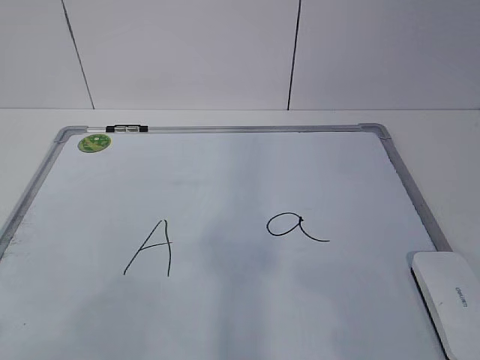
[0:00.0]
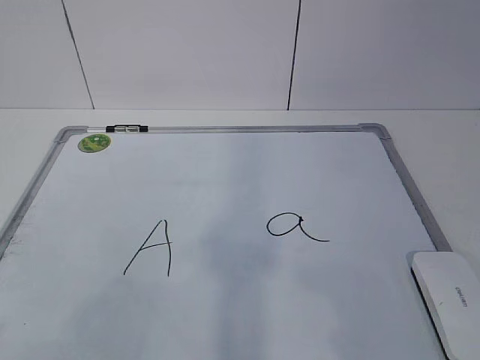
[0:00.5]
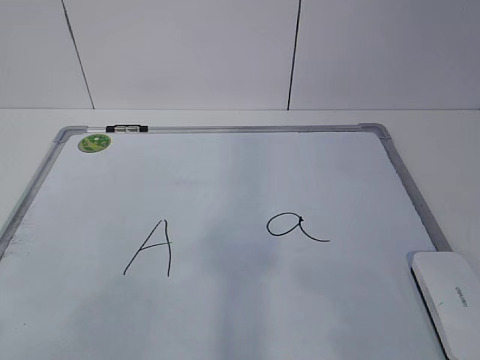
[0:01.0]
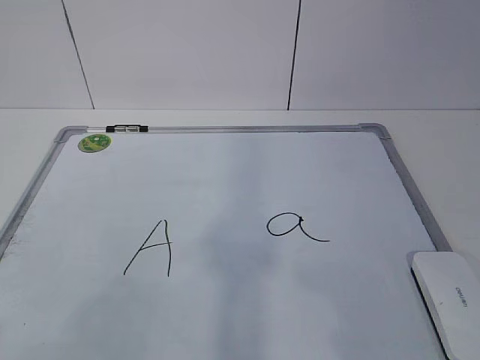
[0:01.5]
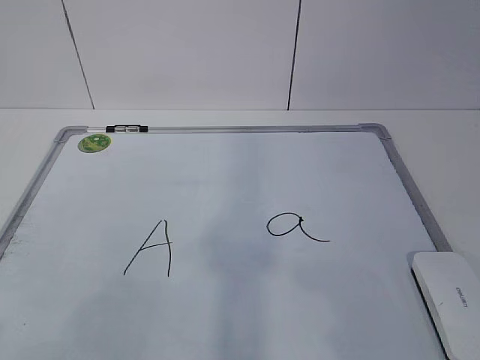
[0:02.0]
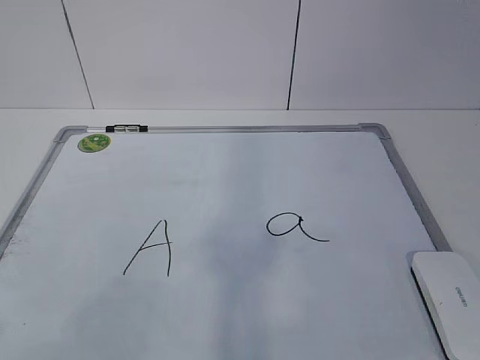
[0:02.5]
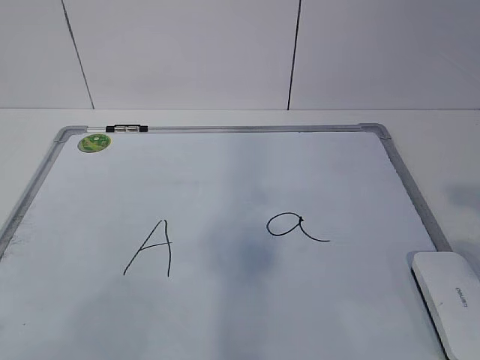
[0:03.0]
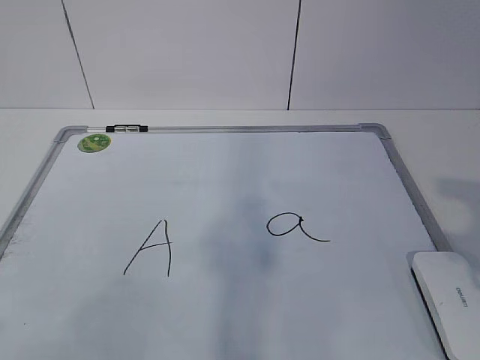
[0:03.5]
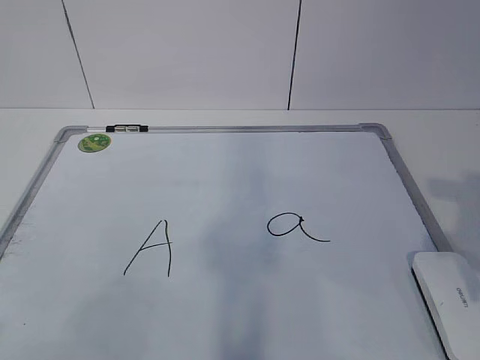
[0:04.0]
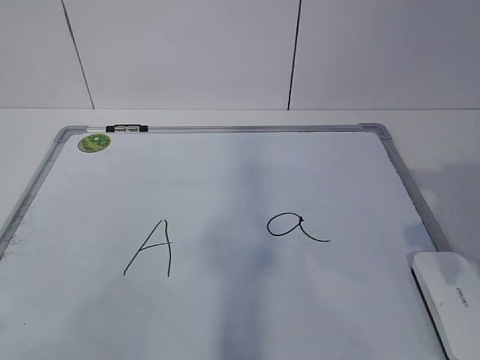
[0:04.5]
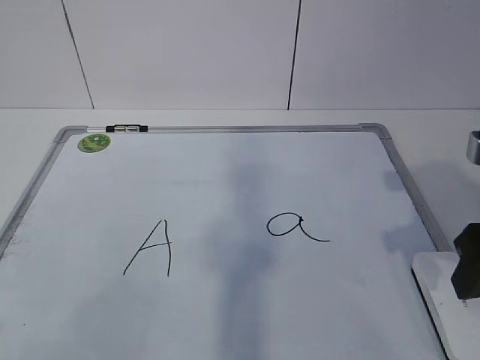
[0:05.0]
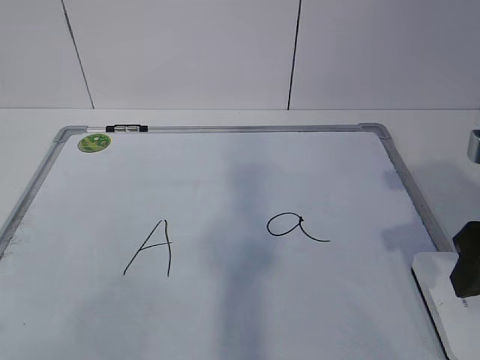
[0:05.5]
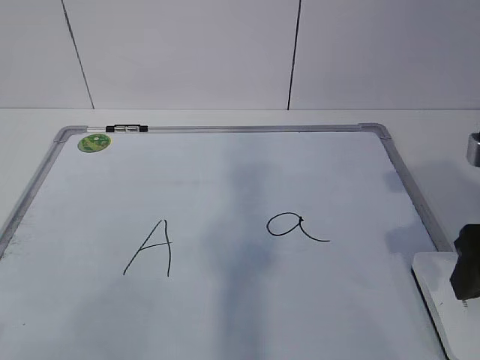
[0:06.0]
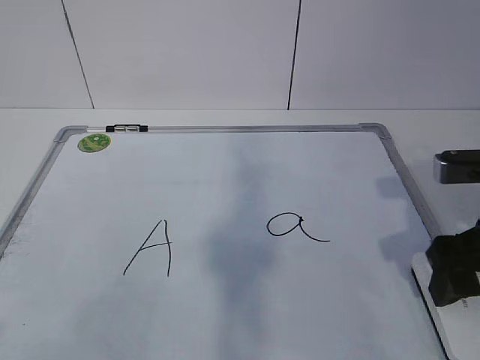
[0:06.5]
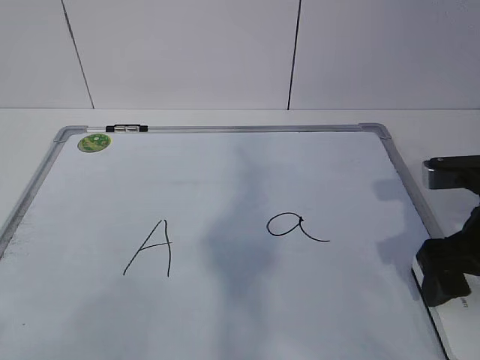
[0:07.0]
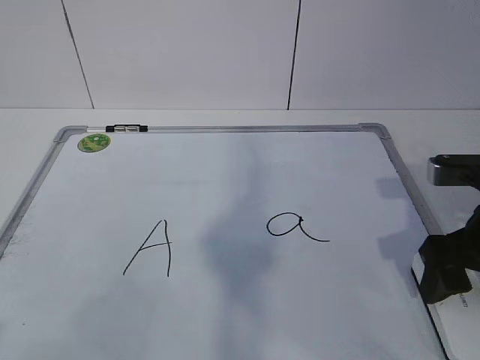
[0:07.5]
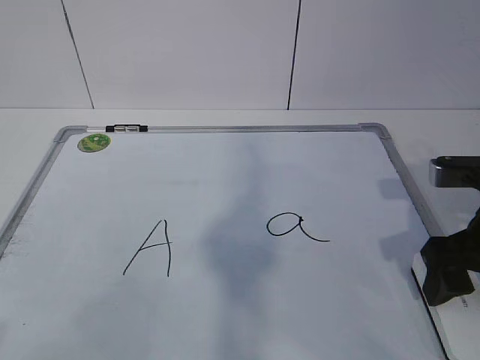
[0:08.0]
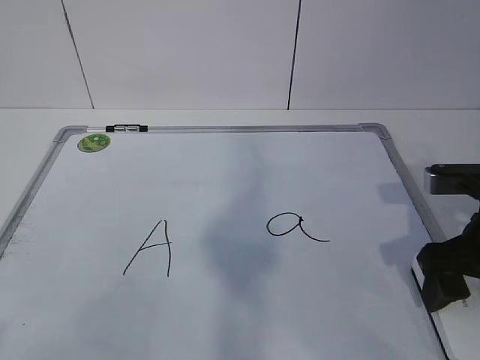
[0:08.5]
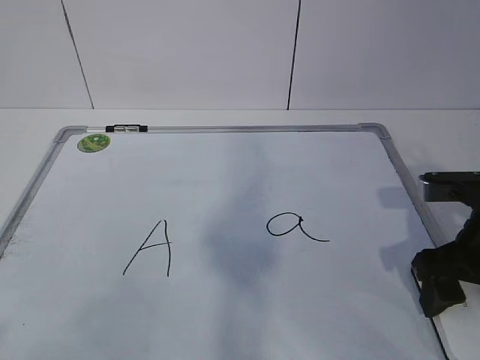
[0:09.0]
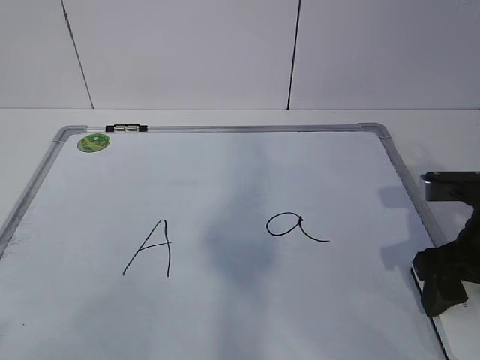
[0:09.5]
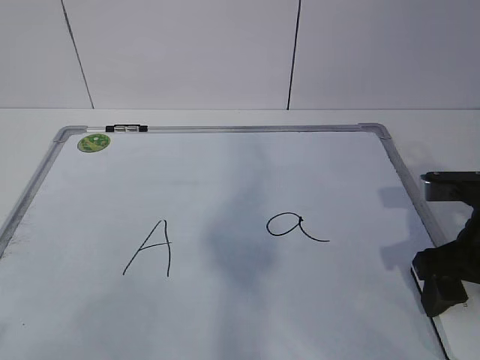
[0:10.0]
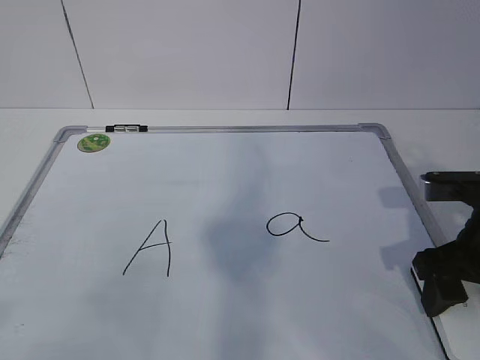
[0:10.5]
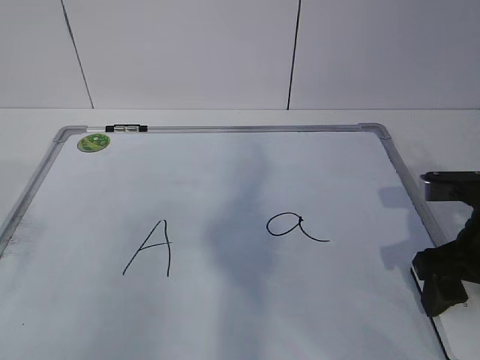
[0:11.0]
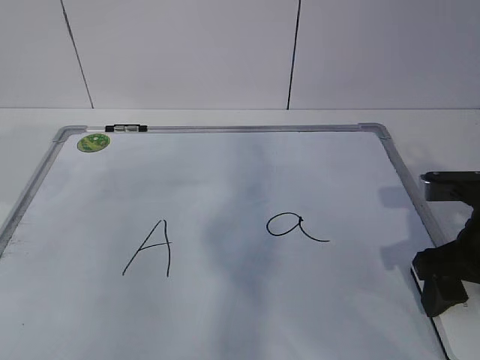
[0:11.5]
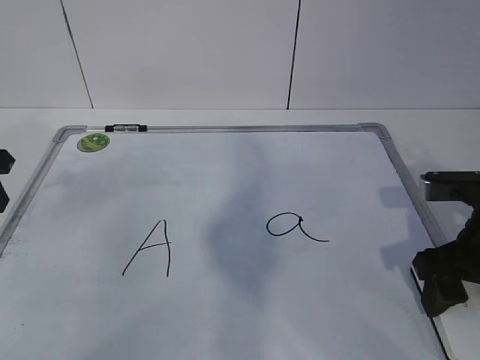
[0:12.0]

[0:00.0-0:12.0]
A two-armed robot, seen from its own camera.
Task of the whole recording: pick up the eraser on the blackboard and erase the letter "a".
0:04.0 to 0:06.0: The right gripper heads forward, covering about 5 cm.
0:06.0 to 0:08.0: The right gripper shifts by some 5 cm.
0:08.0 to 0:10.0: The grippers make only small movements.
0:10.0 to 0:12.0: The left gripper heads forward, covering approximately 30 cm.

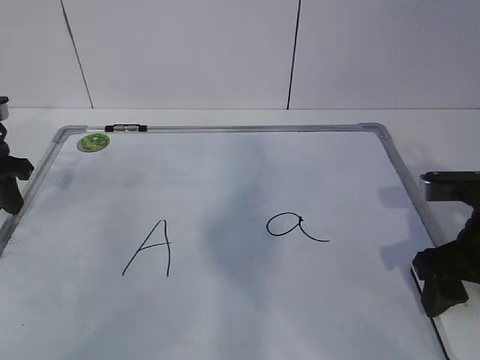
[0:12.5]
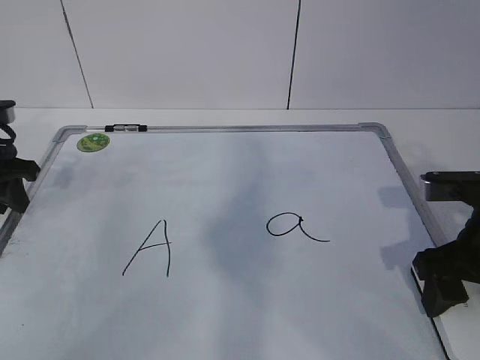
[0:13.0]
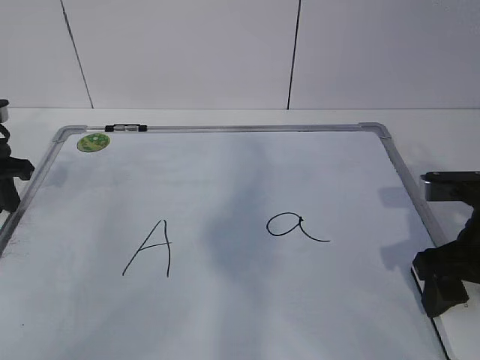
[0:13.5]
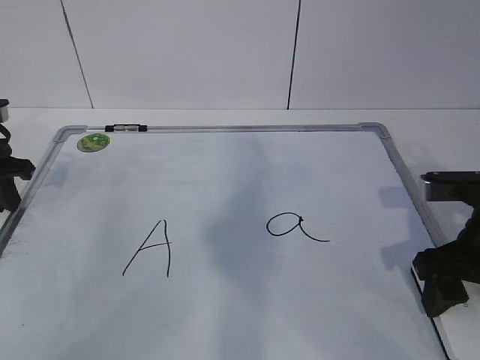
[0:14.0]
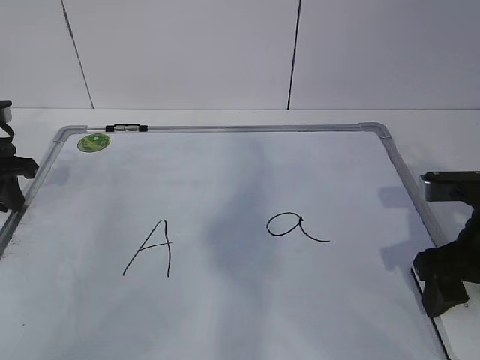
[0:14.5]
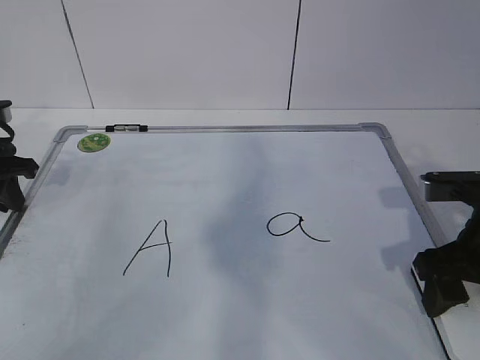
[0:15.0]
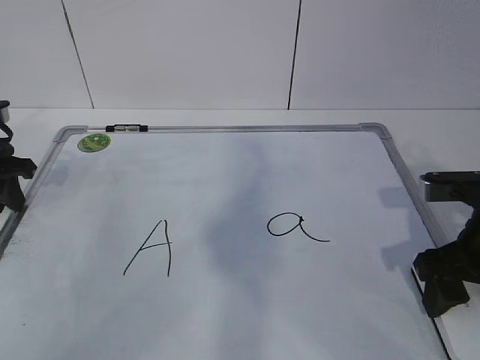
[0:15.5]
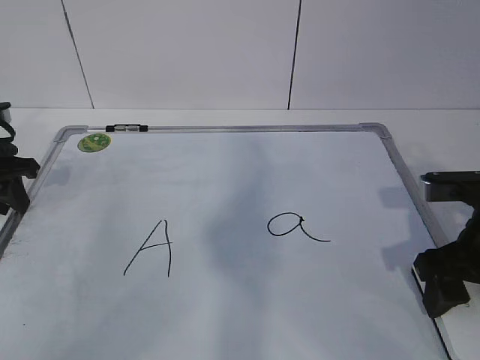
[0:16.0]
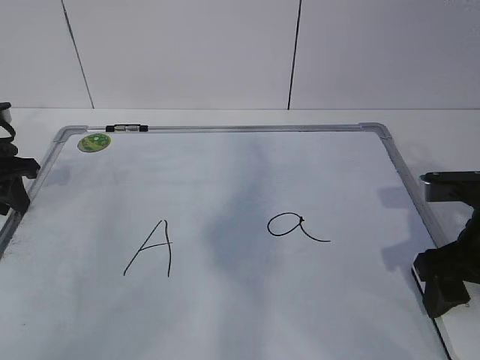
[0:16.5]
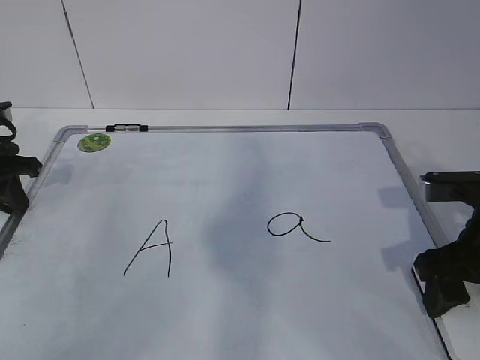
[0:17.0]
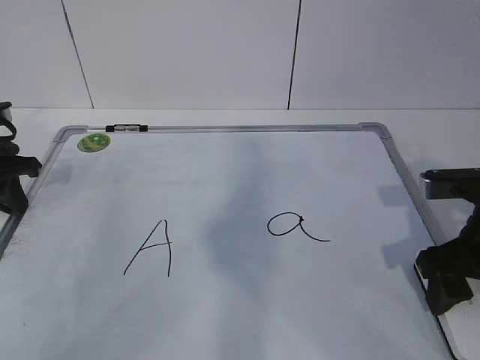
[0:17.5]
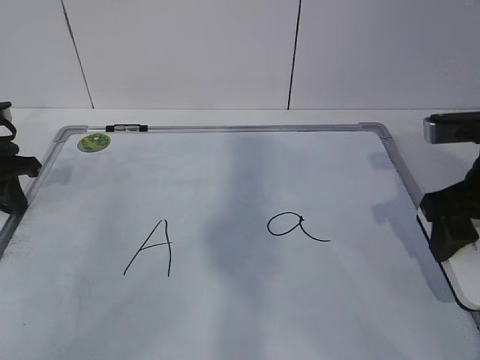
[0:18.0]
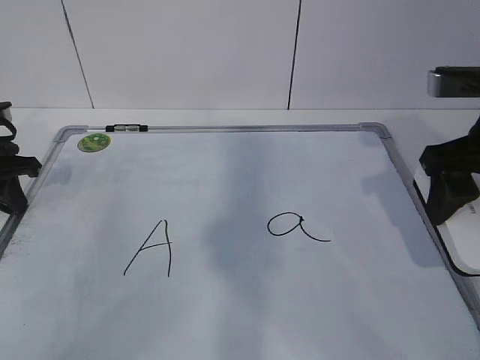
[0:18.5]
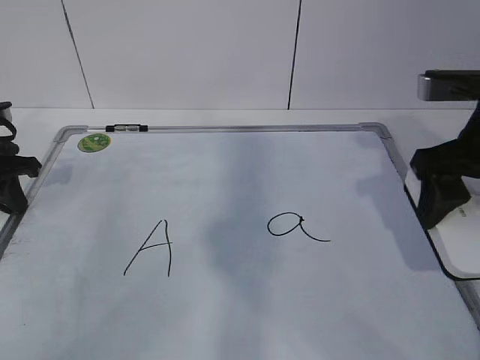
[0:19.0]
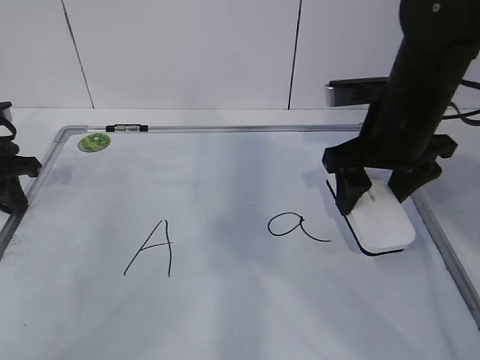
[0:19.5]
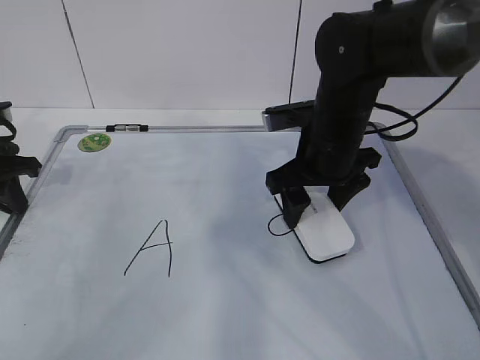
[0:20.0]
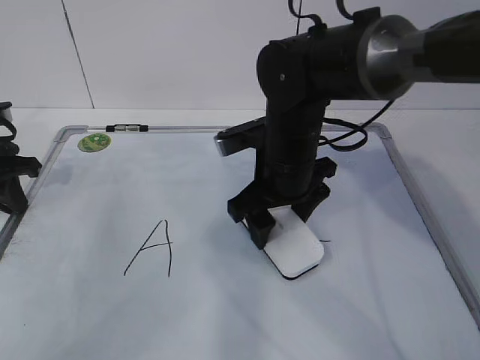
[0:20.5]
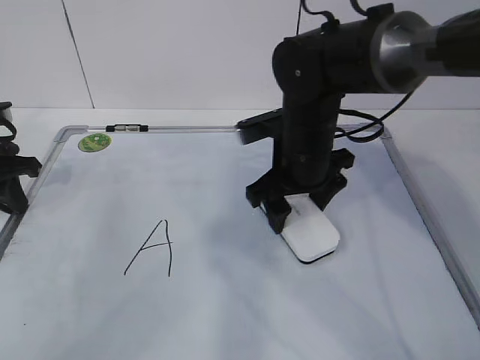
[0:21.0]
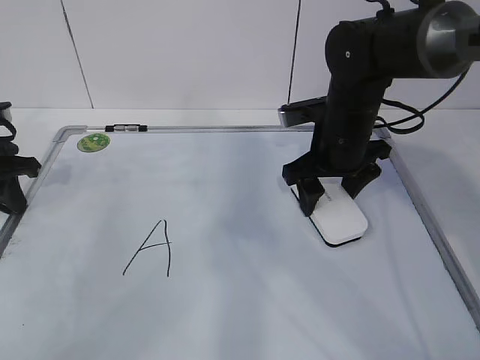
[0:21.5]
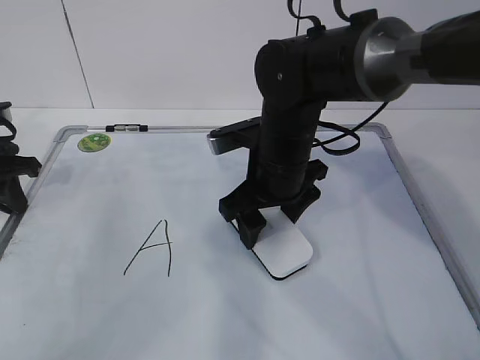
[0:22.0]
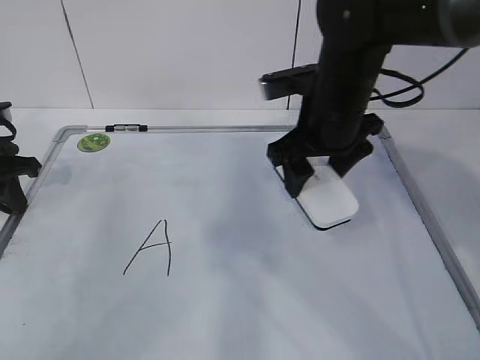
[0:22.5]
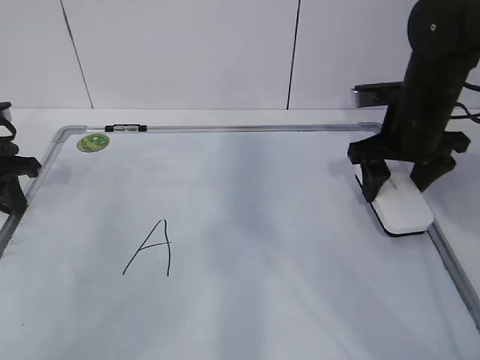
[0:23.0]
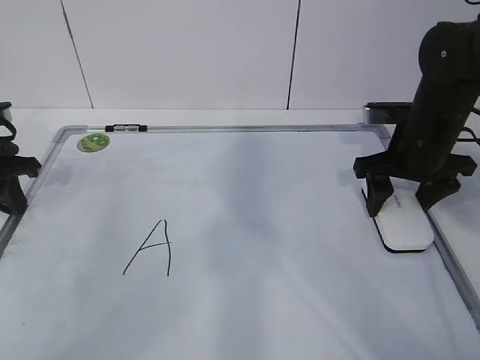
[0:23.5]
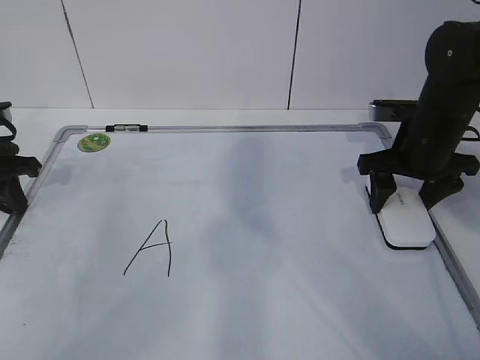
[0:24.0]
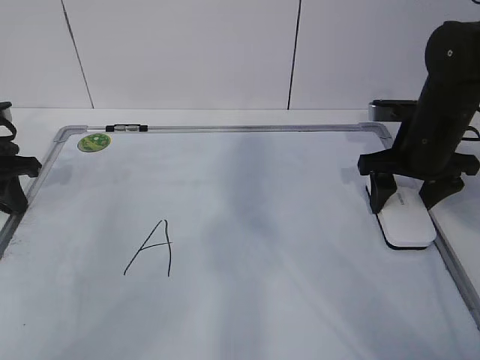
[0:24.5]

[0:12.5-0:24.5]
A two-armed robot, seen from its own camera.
Task of the whole recording: pick up the eraser on the blackboard and erase the letter "a".
Step, 0:15.0 to 0:18.0: Erase the letter a with your right hand.
Step, 0:18.5 to 0:23.0: Put down the eraser with your right hand.
0:12.5 to 0:14.5: The left gripper closes its fingers.
0:16.5 to 0:18.5: The right gripper shifts some 10 cm upward.
0:18.5 to 0:20.5: The right gripper is displaced to the left, downward and forward by some 20 cm.
0:20.5 to 0:22.5: The right gripper goes left and right, some 10 cm each way, reversing 2 times.
0:22.5 to 0:24.5: The right gripper travels to the right by some 15 cm.

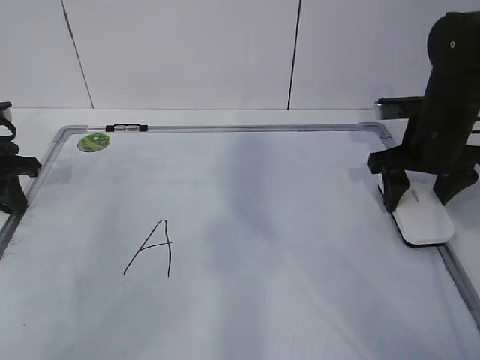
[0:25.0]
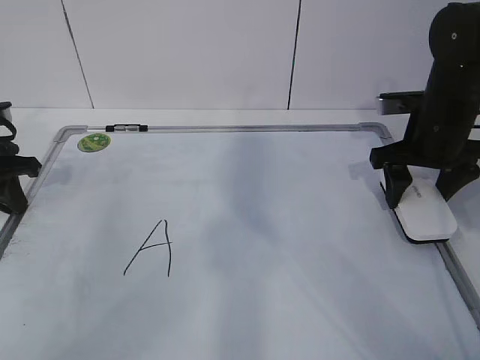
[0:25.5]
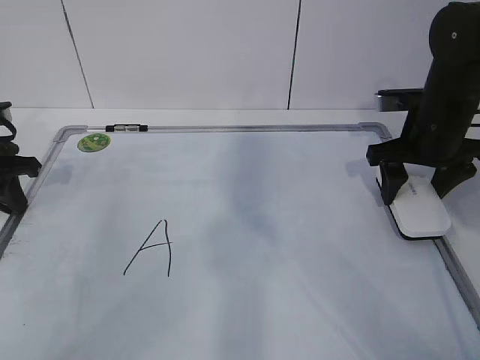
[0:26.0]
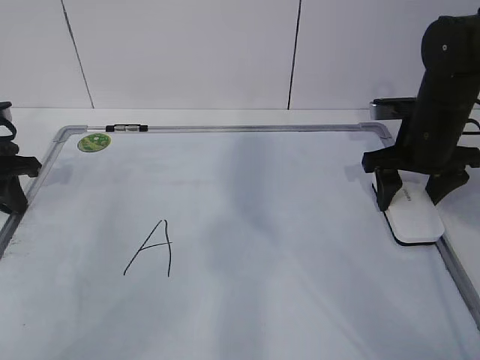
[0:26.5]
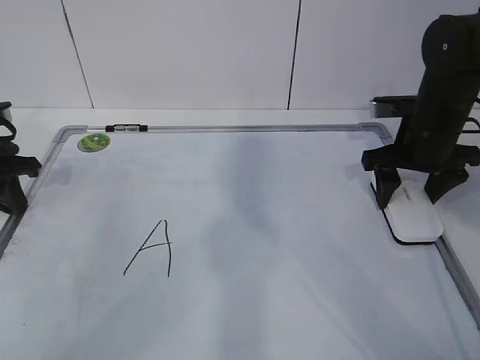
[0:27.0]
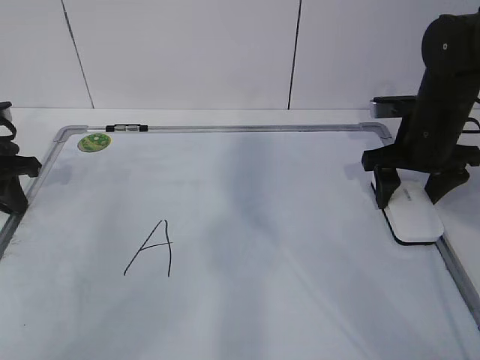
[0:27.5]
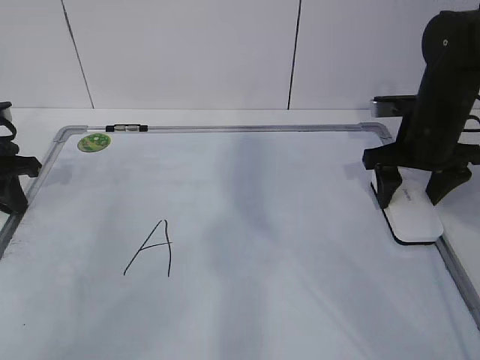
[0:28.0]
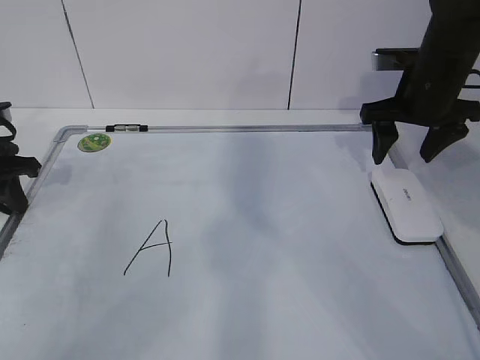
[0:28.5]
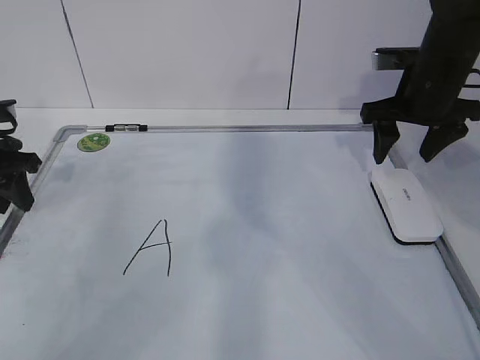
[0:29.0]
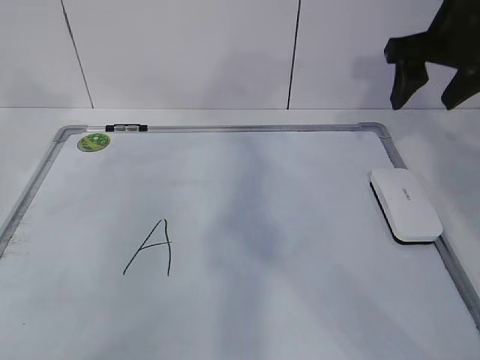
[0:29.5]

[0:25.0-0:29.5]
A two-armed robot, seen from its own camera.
Task of the whole recording: pick up the eraser on the blackboard and erase the letter "a".
0:25.0 to 0:27.0: Both grippers stay put.
0:27.0 to 0:29.5: The grippers both shift upward by roughly 15 cm. The left gripper opens.
